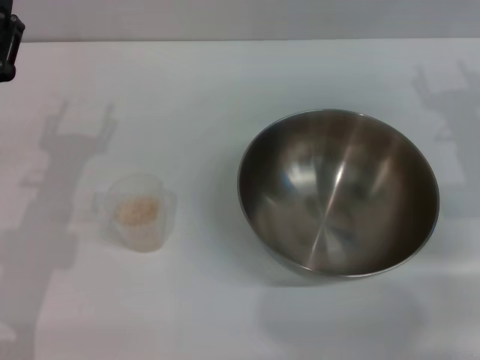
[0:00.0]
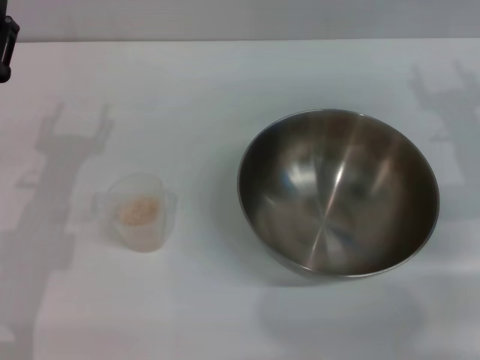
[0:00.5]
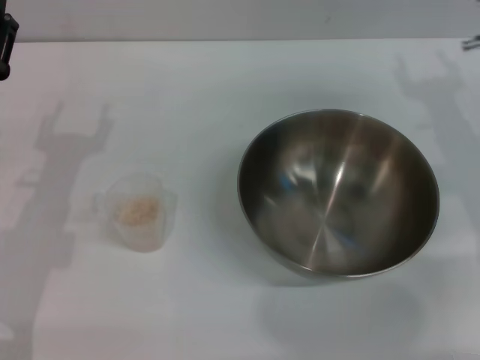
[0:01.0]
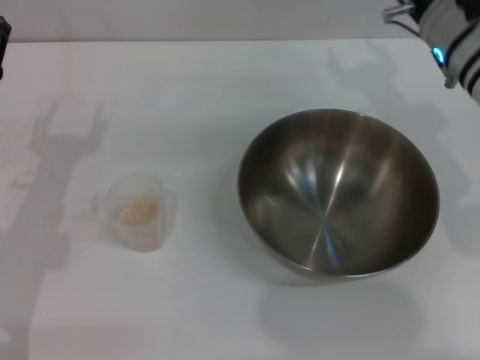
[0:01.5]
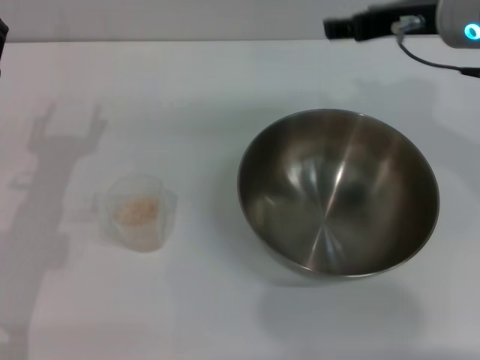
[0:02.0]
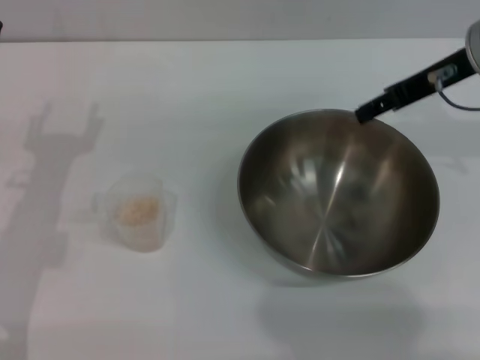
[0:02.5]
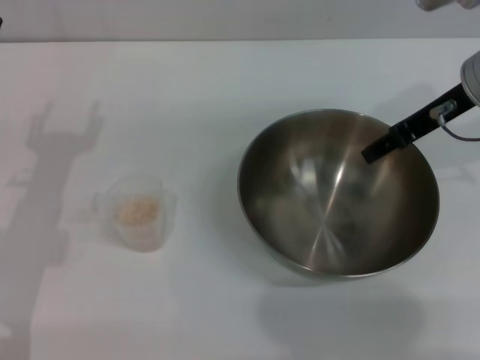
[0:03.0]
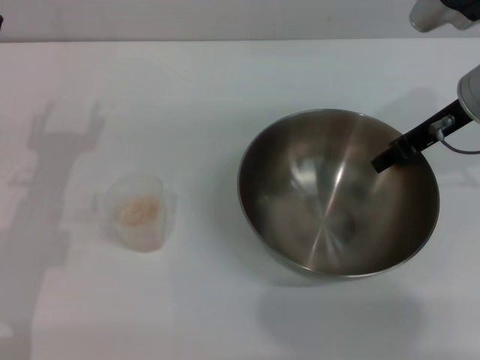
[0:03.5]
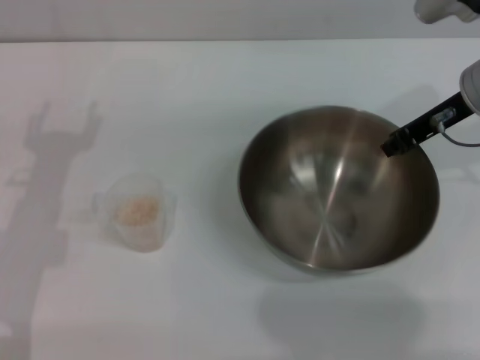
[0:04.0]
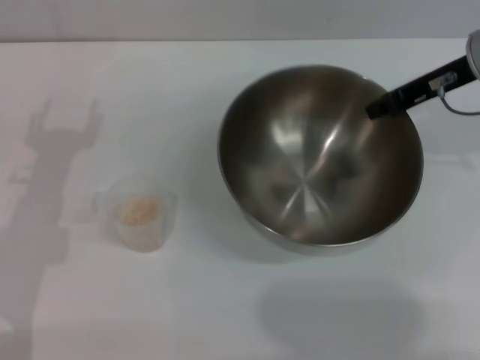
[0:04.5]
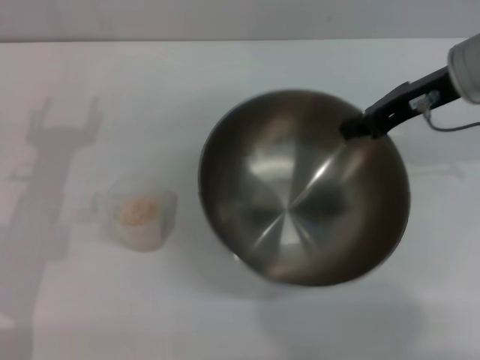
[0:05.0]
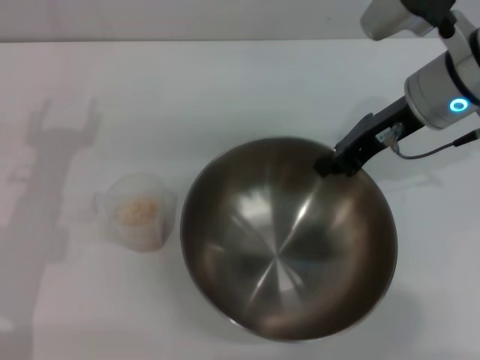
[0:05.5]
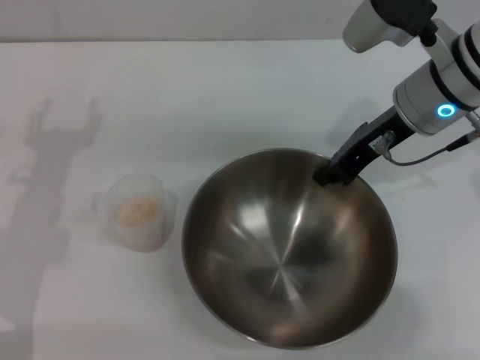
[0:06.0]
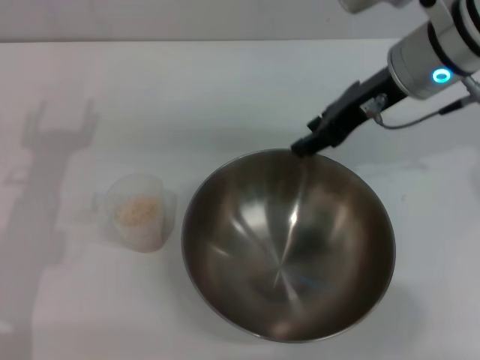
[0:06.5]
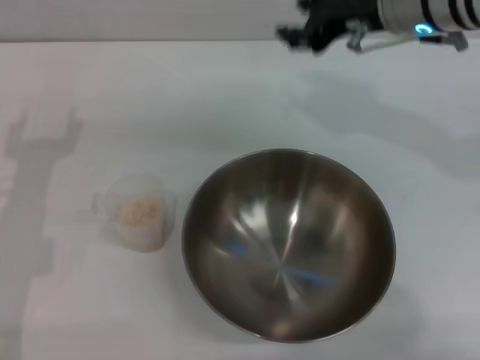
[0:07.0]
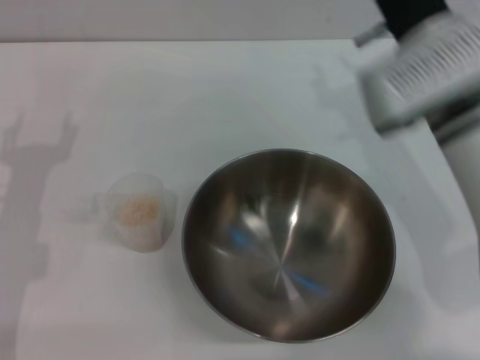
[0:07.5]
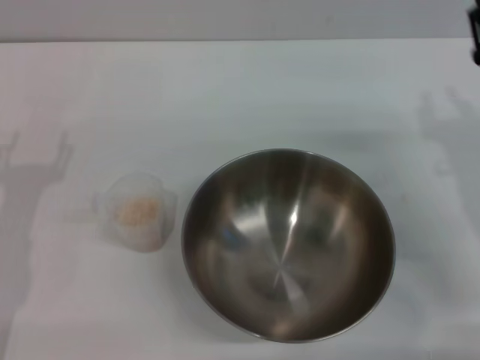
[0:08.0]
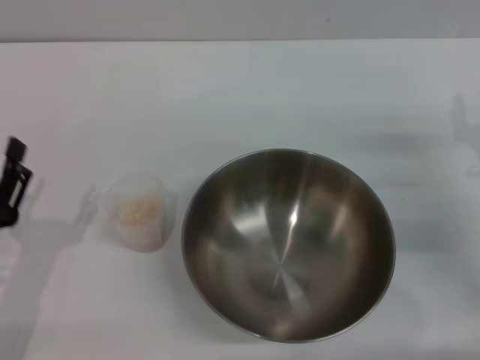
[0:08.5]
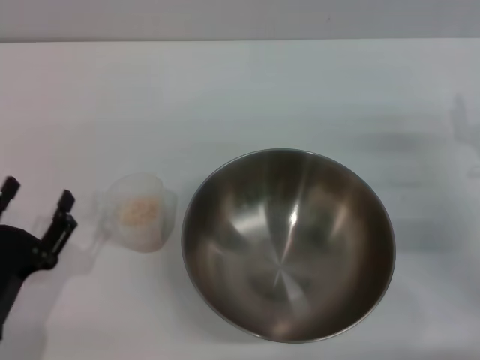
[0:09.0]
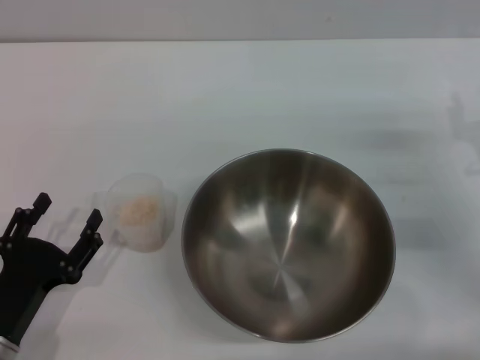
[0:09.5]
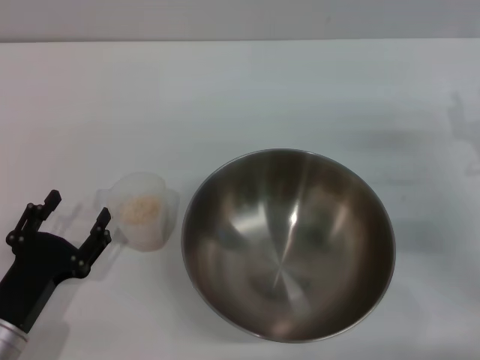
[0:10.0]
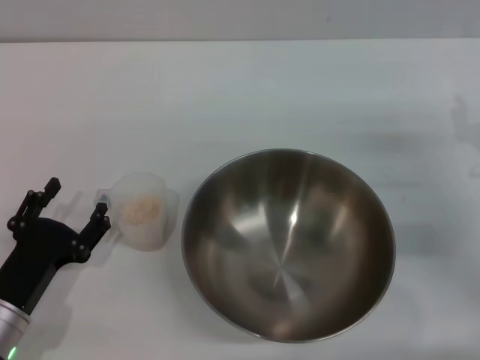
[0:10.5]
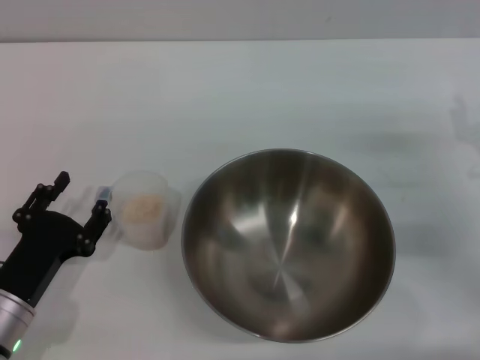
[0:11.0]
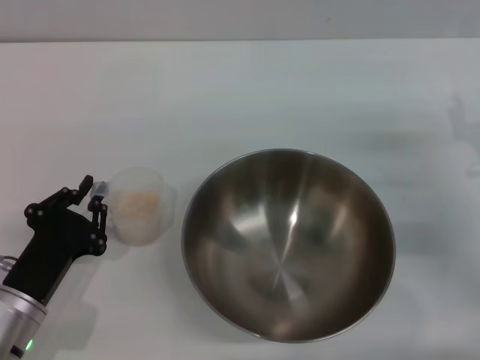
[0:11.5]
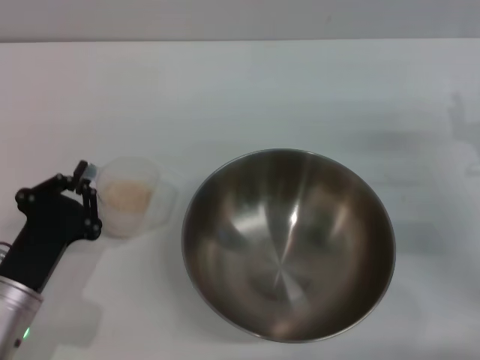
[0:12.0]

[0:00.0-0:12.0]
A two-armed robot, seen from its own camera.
Task of the whole recording: Place the bowl in the middle of the table with one hand and pour the rice from the grain cup into it with the other hand.
Step, 0:00.0 to 0:04.5: Pick up the bowl with the right gripper.
Step, 0:05.0 to 0:06.5: Place the bowl in the center of view with the right gripper.
Step, 0:07.0 to 0:12.0: Pick up the cup with rice in it with the left gripper.
0:00.0 to 0:02.0: The right gripper shifts approximately 15 cm upward and to the left.
0:02.0 to 0:04.0: The right gripper travels downward by roughly 5 cm, and closes up.
0:04.0 to 0:06.0: The right gripper moves to the left, roughly 5 cm.
0:06.0 to 0:08.0: The right gripper is displaced downward, backward and to the right by approximately 15 cm, and opens up.
0:08.0 to 0:10.0: The left gripper travels backward and downward by about 10 cm.
0:10.0 to 0:12.0: The left gripper closes.

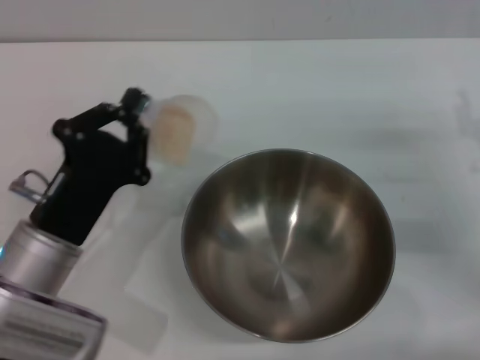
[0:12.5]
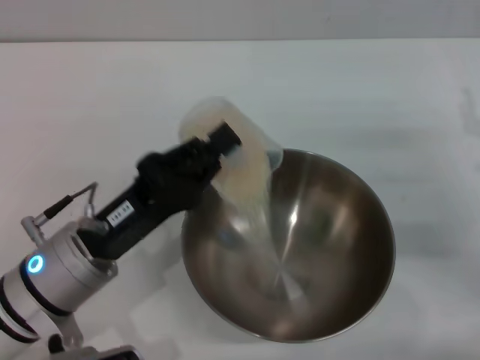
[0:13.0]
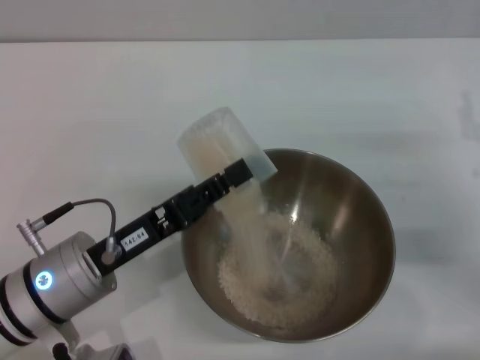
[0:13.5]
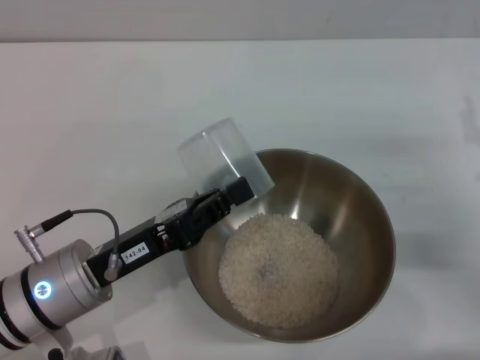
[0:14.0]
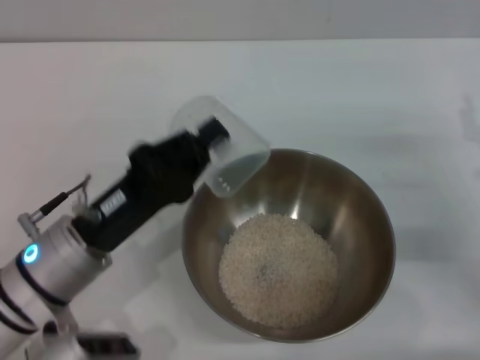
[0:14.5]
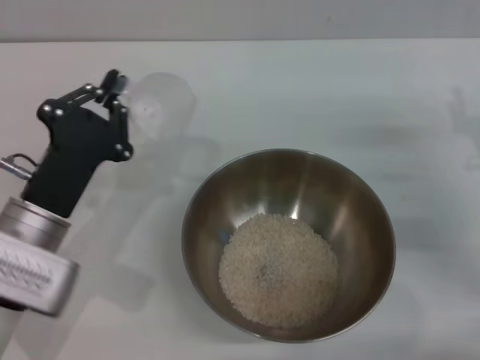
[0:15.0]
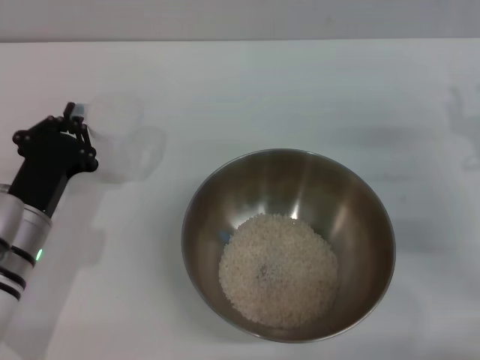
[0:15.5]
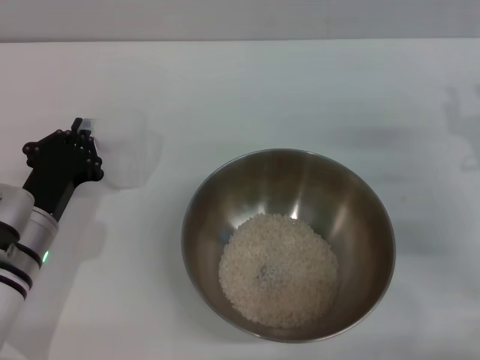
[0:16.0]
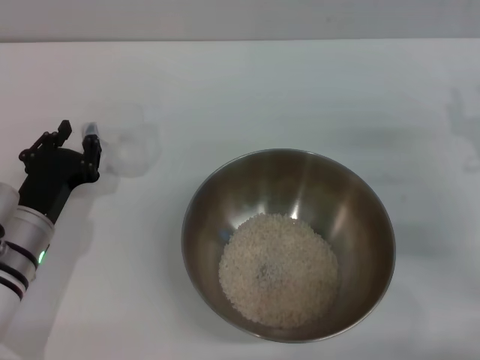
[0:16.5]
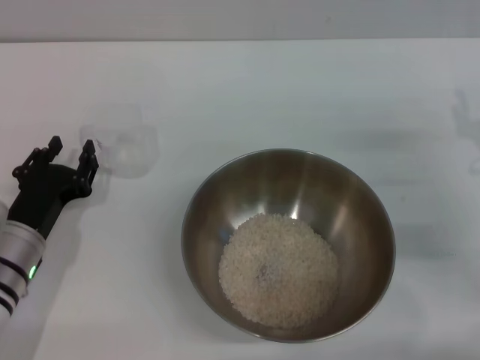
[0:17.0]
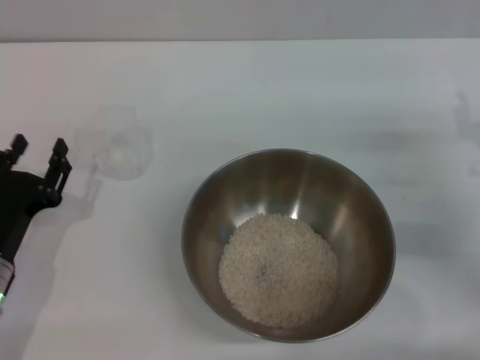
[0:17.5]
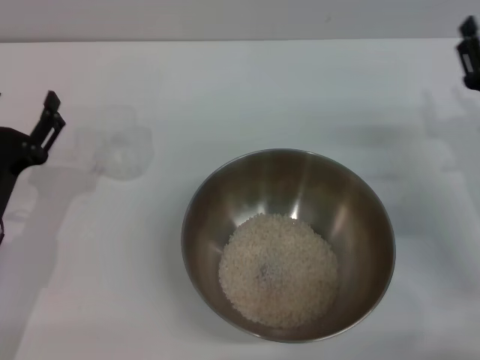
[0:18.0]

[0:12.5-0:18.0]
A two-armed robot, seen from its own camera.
Task of the whole recording: Place the bowl in the middle of the table with one hand and pour the rice from the grain cup into it with the other hand.
Step, 0:12.5 to 0:14.0: Pour the rice from the cup into the bowl with the left gripper.
Step, 0:14.5 to 0:17.0: Place the cup on the table with the left gripper.
0:14.5 to 0:16.0: The left gripper shifts by approximately 10 cm.
0:16.0 to 0:18.0: The left gripper opens up.
